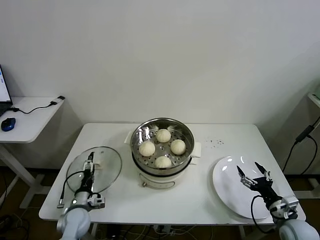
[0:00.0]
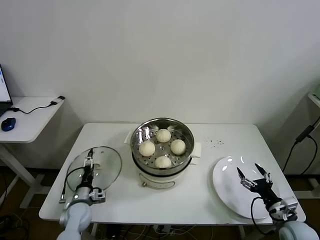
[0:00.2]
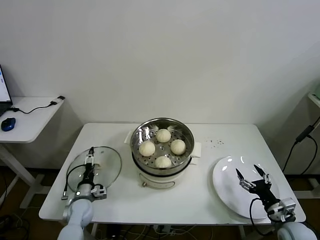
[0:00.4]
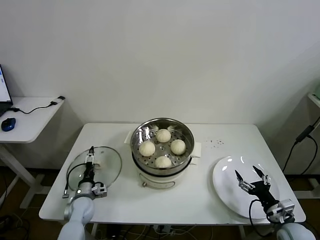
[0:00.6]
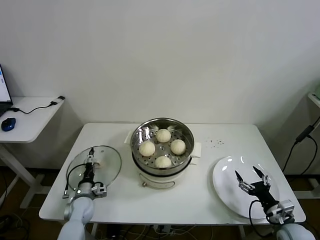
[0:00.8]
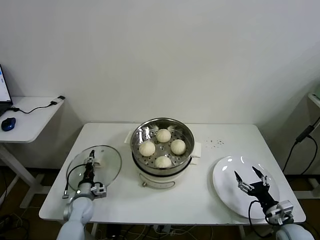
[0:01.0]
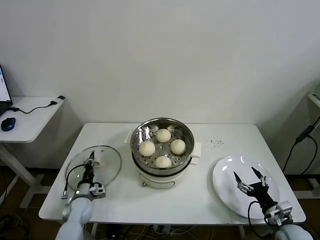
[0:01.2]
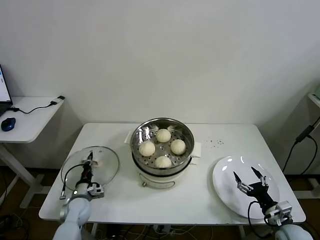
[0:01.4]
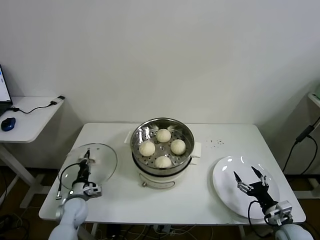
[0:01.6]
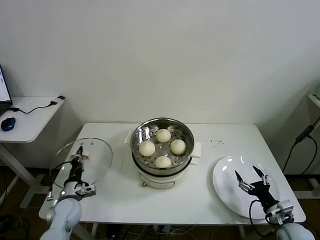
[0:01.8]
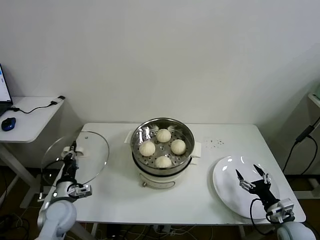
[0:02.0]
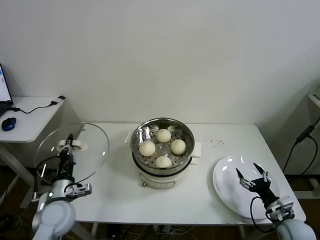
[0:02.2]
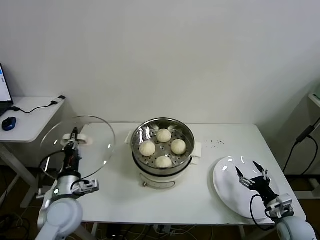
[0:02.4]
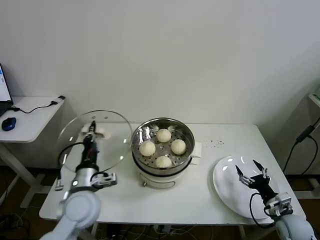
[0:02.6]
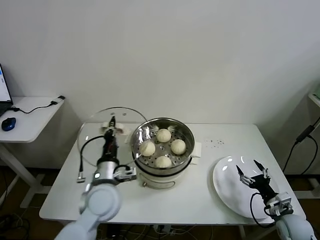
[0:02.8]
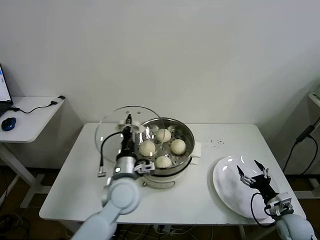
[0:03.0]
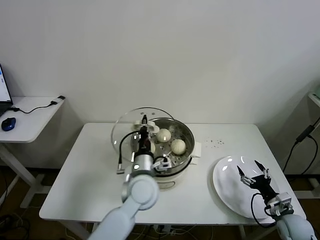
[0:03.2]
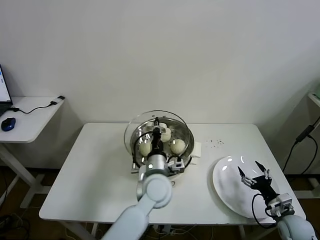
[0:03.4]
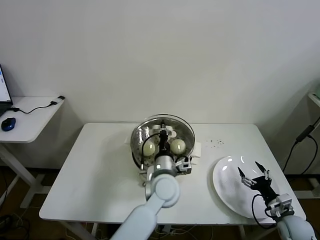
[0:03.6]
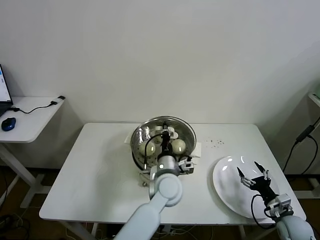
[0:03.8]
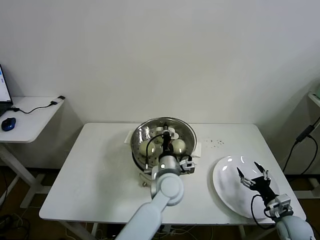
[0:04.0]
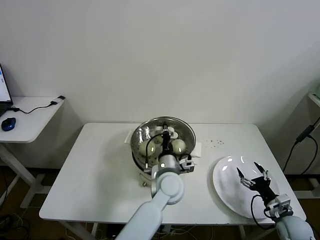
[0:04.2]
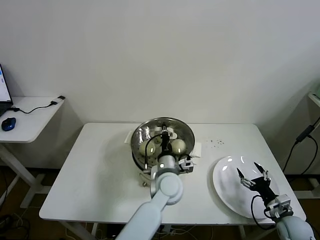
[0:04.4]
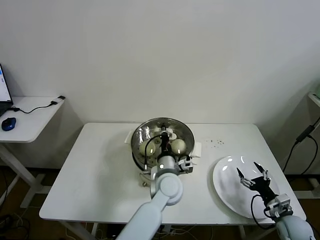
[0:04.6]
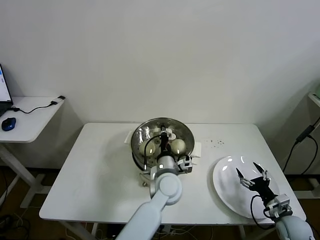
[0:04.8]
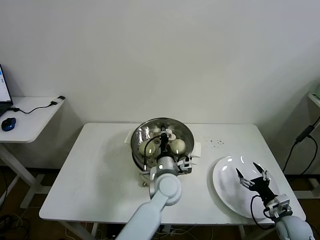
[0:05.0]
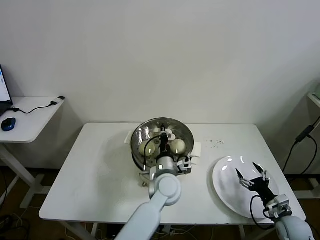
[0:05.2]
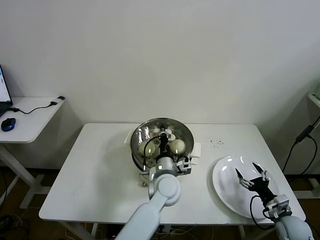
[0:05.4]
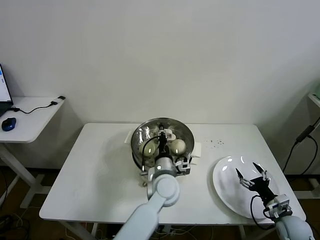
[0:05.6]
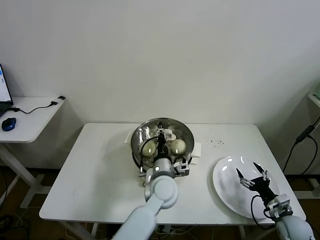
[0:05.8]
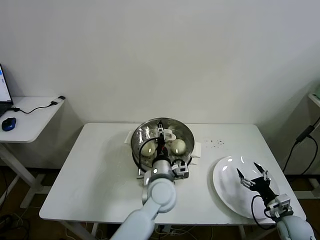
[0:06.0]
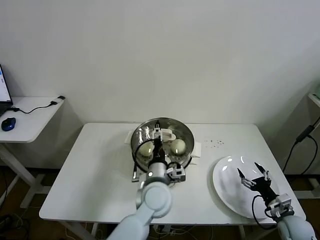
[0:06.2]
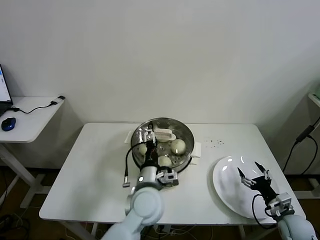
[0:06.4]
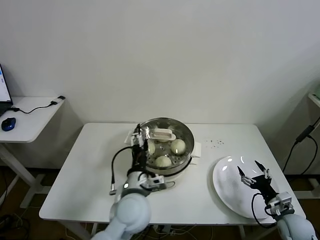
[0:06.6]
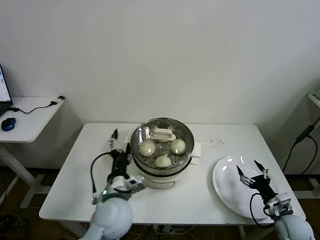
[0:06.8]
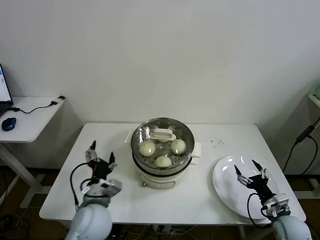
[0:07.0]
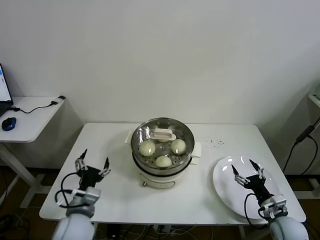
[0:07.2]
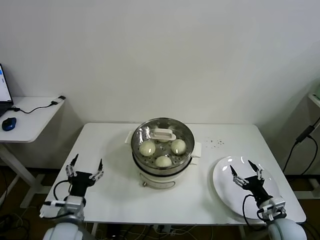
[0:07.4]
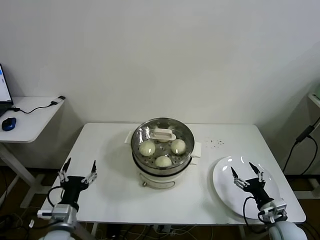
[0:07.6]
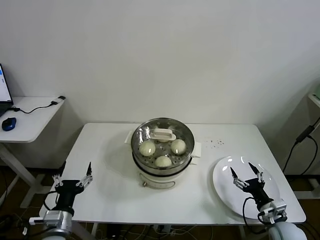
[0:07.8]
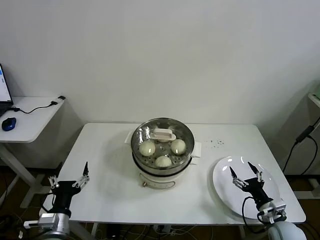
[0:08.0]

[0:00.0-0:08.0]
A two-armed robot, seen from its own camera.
Task of the whole recording: take steamed baozi put them in steamer then cover it.
Step, 0:01.6 to 0:05.8: Place the pot lid on the steamer with left gripper.
0:00.0 to 0:01.6: The left gripper shifts by approximately 5 cm, and closes.
0:01.6 to 0:03.2: The left gripper moves to the right and upward, approximately 35 cm.
0:03.2 to 0:04.8: The left gripper shifts about 10 cm to the right.
0:04.8 to 0:06.4: The left gripper heads backward and to the left, covering approximately 10 cm, and opens its fingers.
0:06.4 to 0:08.0: The left gripper travels to the left and backward by about 30 cm; the right gripper is displaced to the left by about 5 cm.
